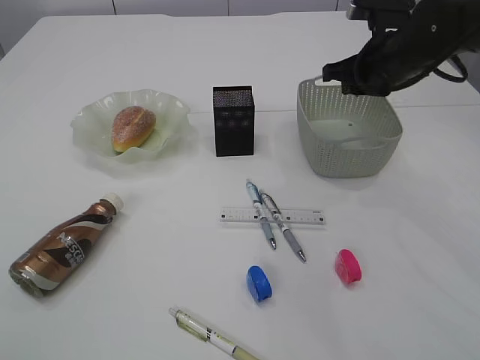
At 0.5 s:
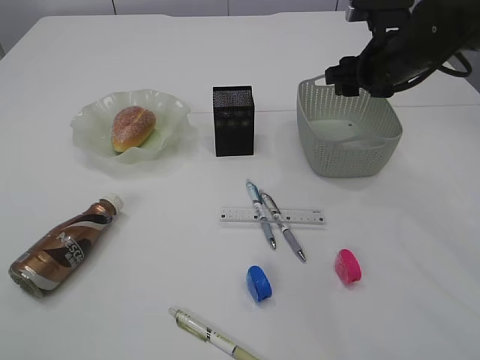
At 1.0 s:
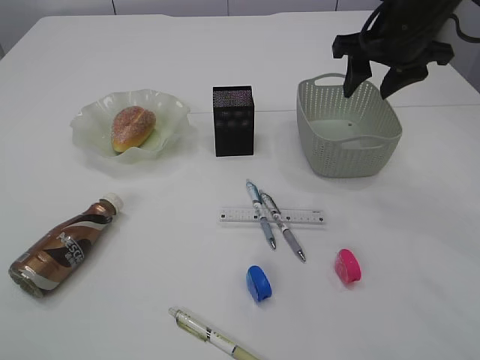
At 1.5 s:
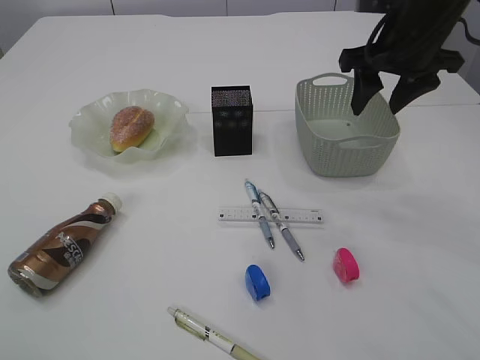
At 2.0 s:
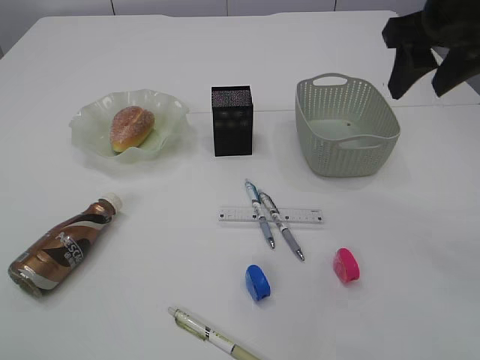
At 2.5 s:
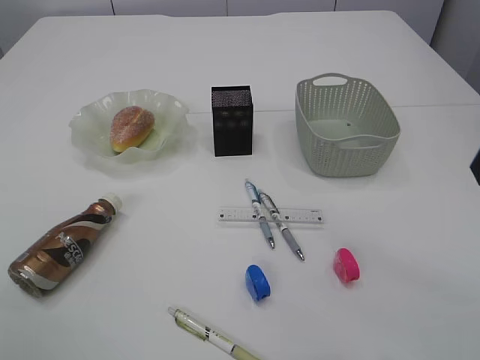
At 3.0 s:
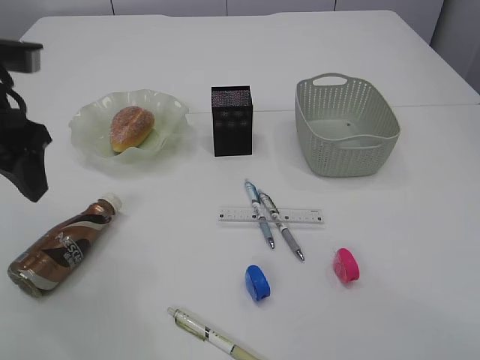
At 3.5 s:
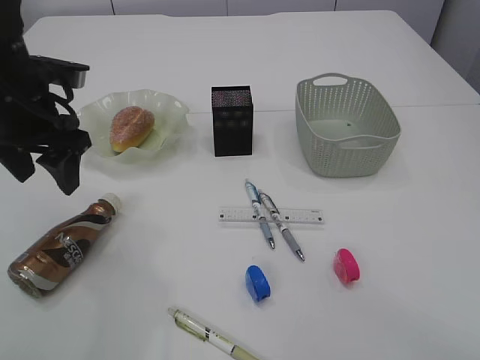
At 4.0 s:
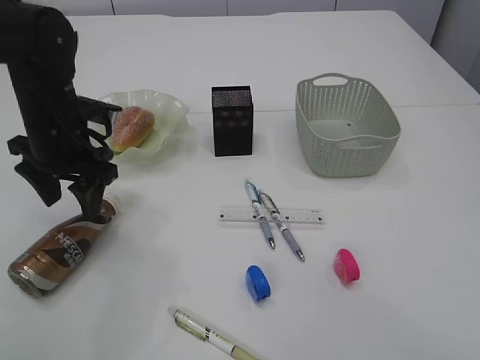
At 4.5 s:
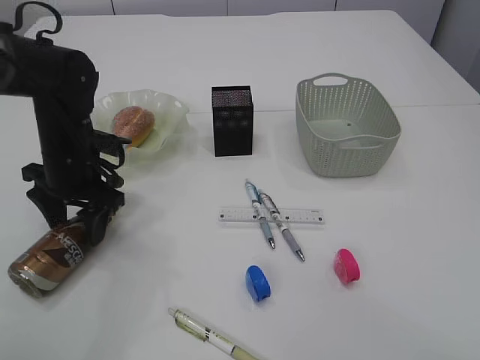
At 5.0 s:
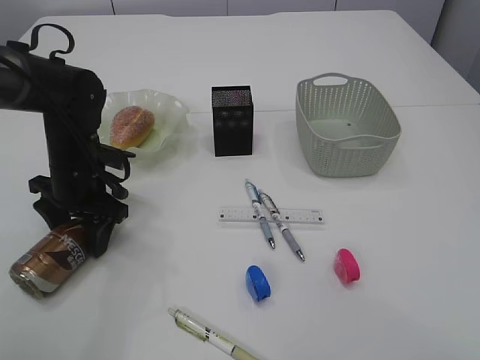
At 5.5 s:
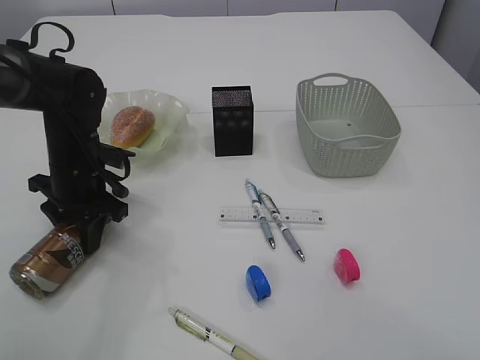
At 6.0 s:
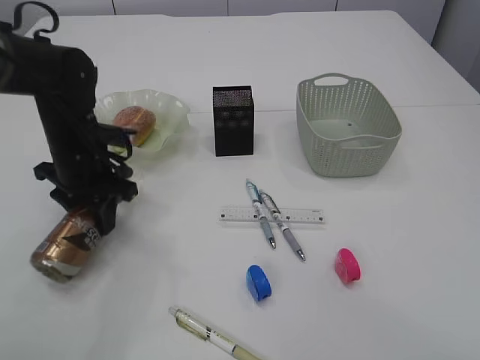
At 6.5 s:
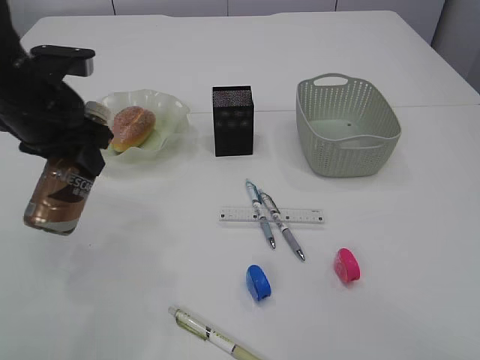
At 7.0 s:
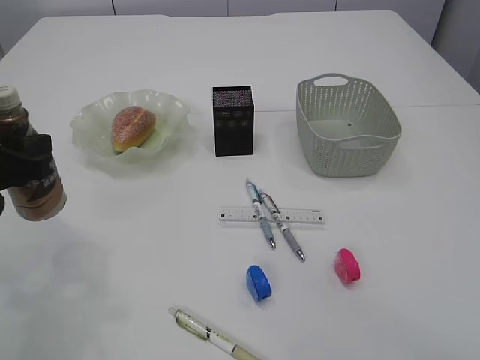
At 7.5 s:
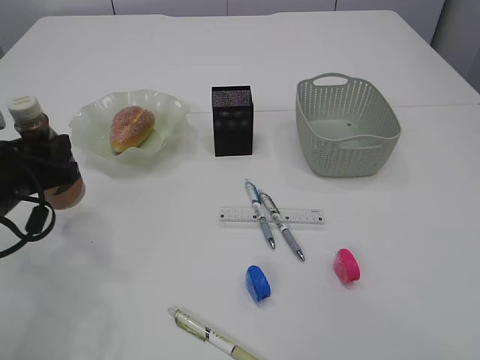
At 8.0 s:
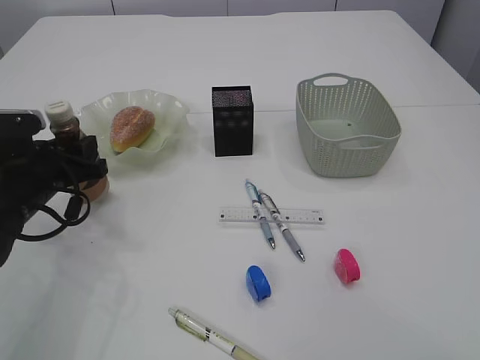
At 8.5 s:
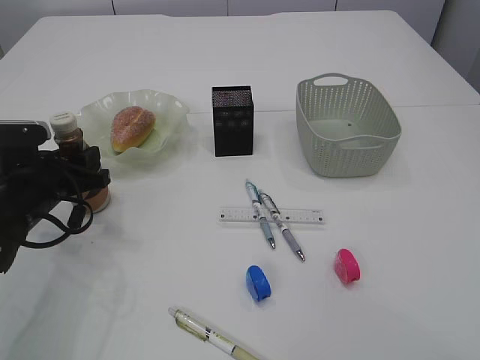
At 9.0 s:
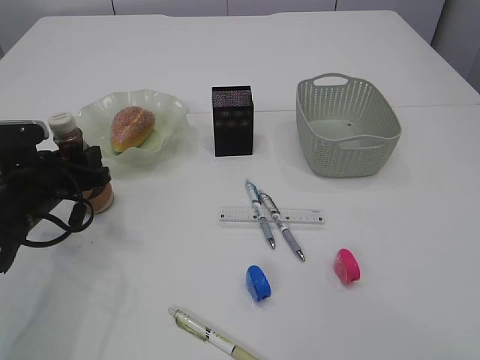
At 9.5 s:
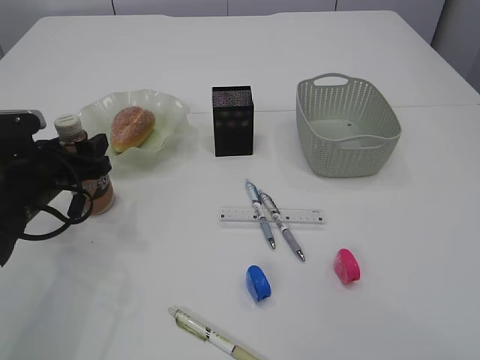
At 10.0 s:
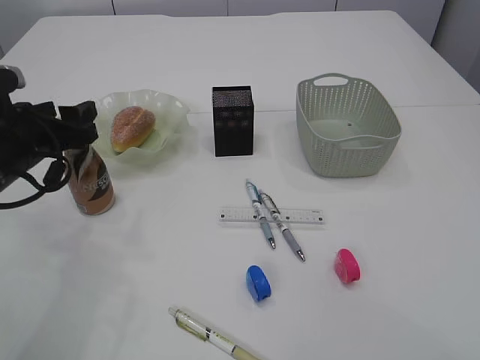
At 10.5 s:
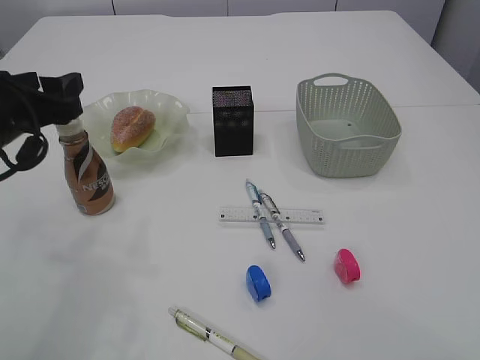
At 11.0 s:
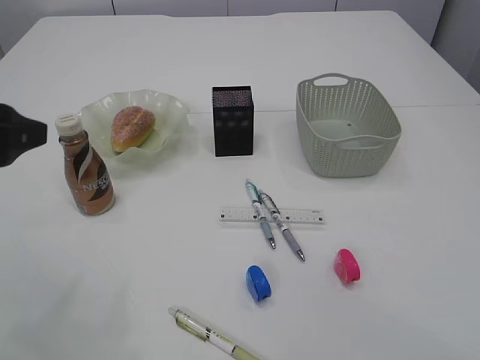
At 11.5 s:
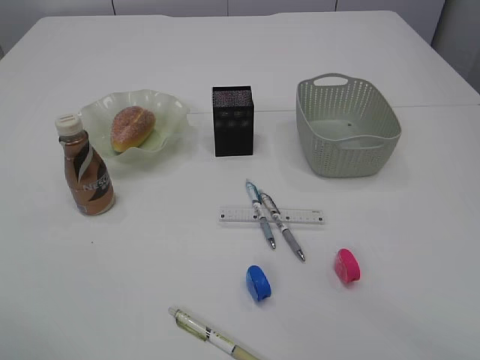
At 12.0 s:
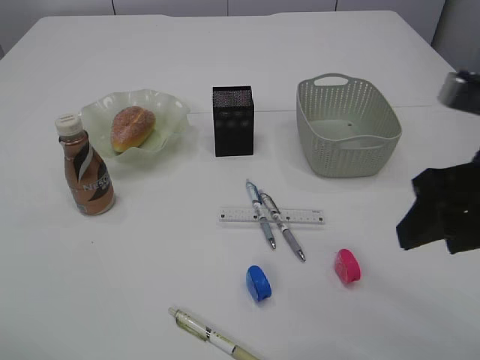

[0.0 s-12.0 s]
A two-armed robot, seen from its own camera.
Step, 1.0 to 6.0 s: Pick up the bottle with the left arm.
Step, 6.5 to 10.0 s: Place the bottle.
0.0 to 2.0 s: The right gripper is displaced upward and backward by roughly 15 cm, and opens.
2.0 to 4.0 s: The right gripper heads backward, covering about 25 cm. Meanwhile the left gripper is displaced downward and forward by some 35 cm.
4.0 to 6.0 s: The left gripper closes.
6.0 to 8.0 s: The left gripper is displaced backward and to the left by roughly 5 cm.
8.0 to 10.0 s: The left gripper goes about 5 cm upward, and opens.
10.0 to 12.0 s: The left gripper shifts approximately 25 cm backward and upward. The right gripper shifts roughly 15 cm forward and downward.

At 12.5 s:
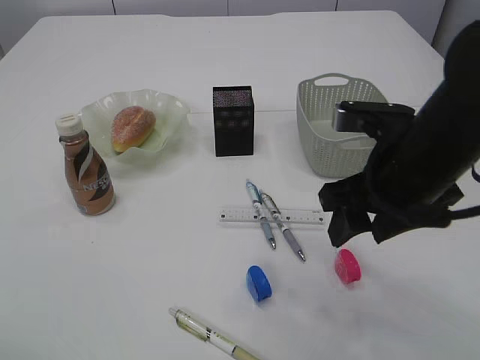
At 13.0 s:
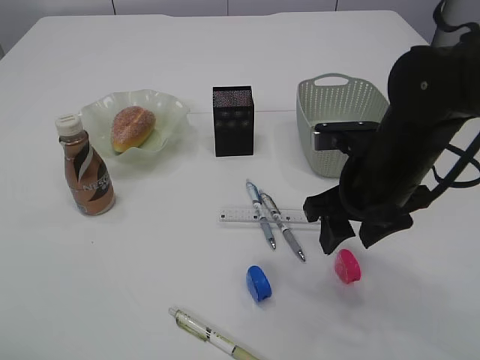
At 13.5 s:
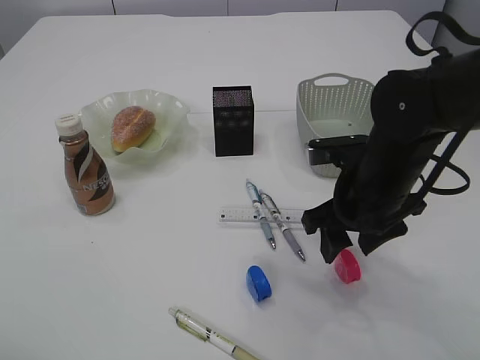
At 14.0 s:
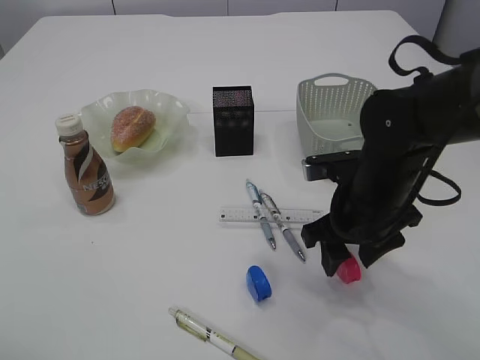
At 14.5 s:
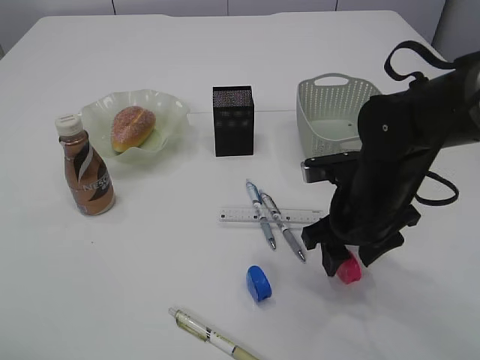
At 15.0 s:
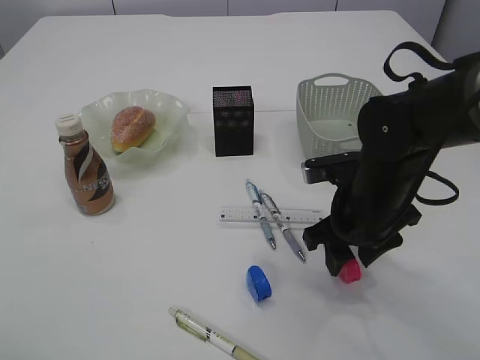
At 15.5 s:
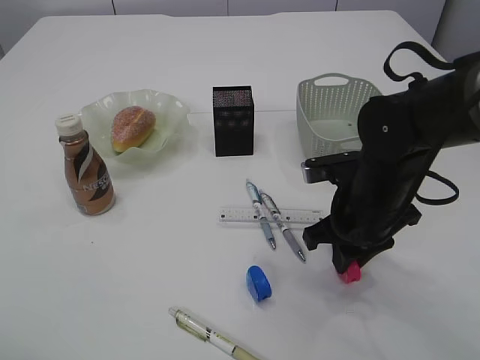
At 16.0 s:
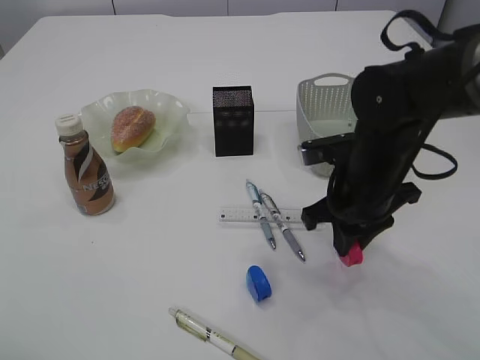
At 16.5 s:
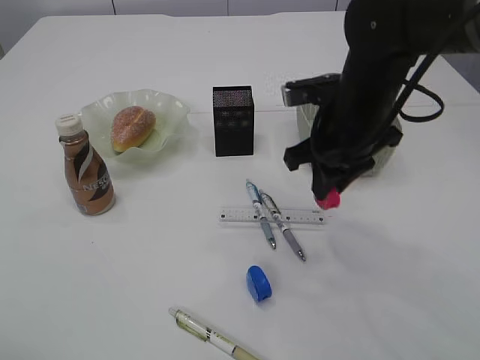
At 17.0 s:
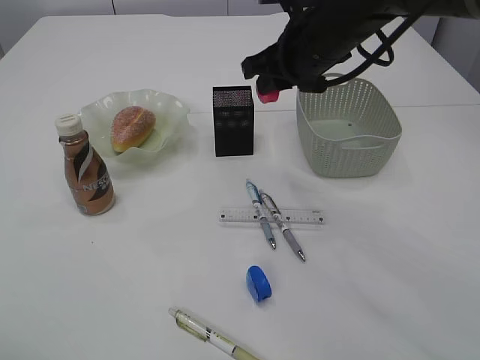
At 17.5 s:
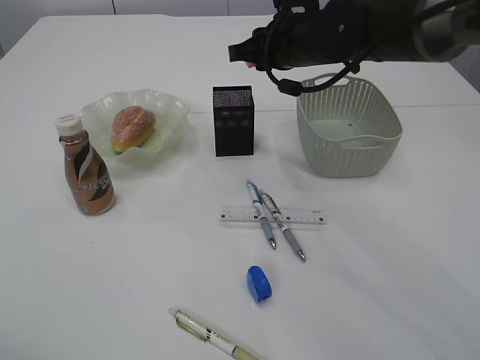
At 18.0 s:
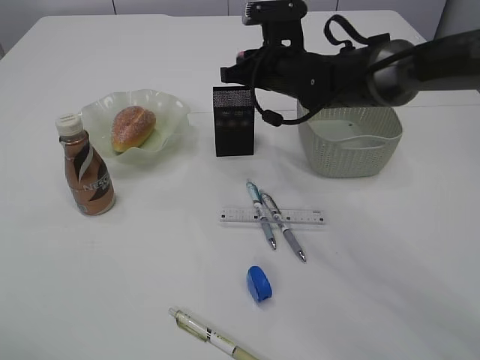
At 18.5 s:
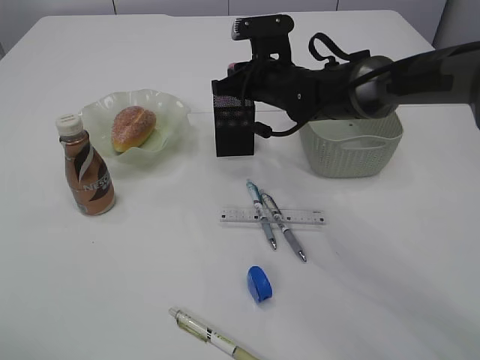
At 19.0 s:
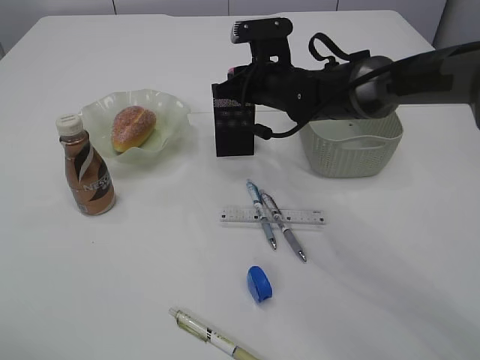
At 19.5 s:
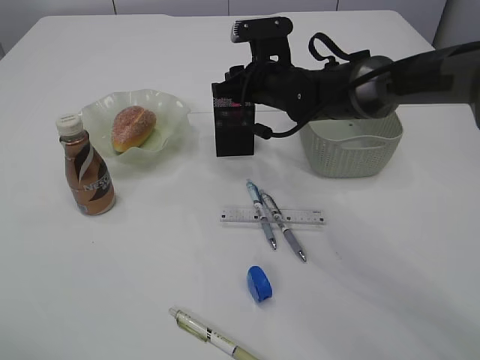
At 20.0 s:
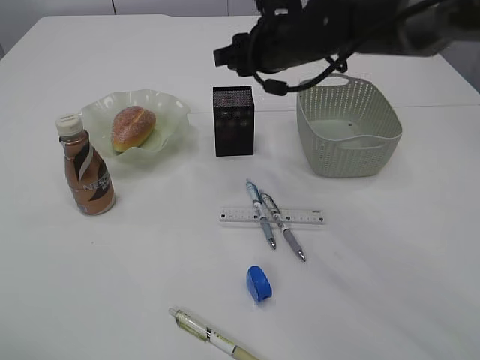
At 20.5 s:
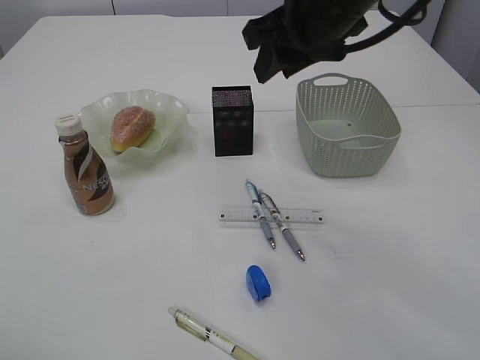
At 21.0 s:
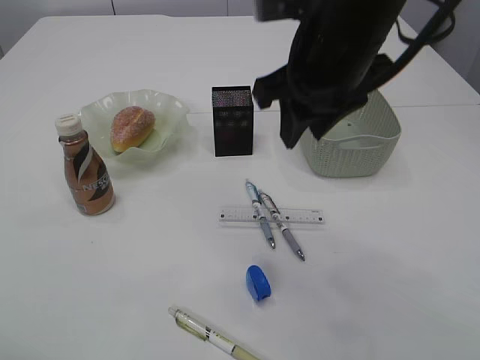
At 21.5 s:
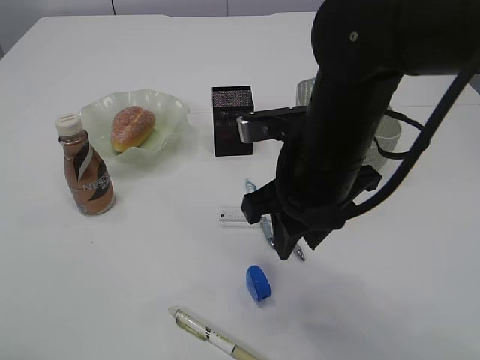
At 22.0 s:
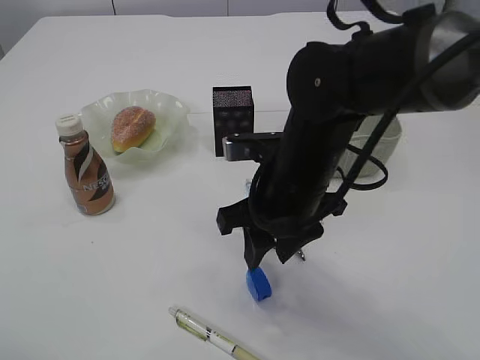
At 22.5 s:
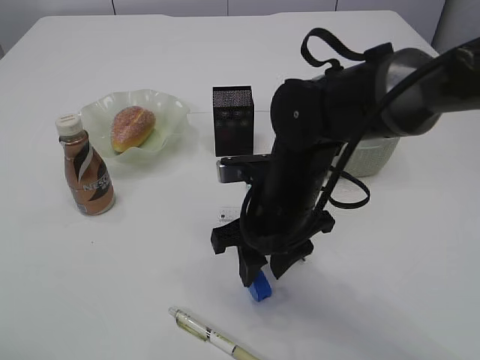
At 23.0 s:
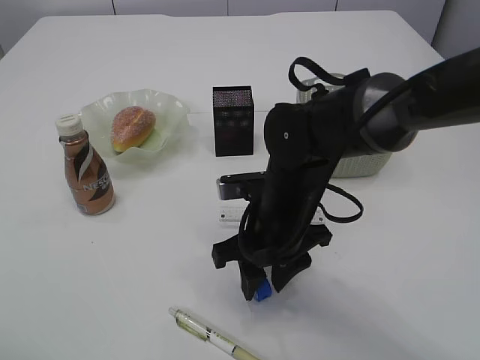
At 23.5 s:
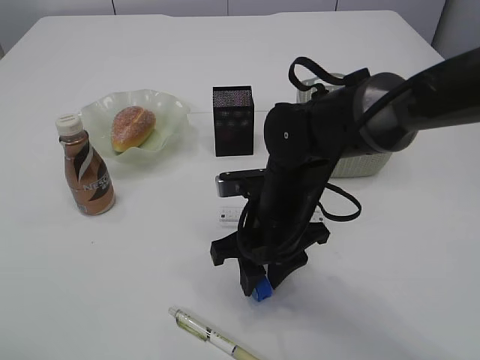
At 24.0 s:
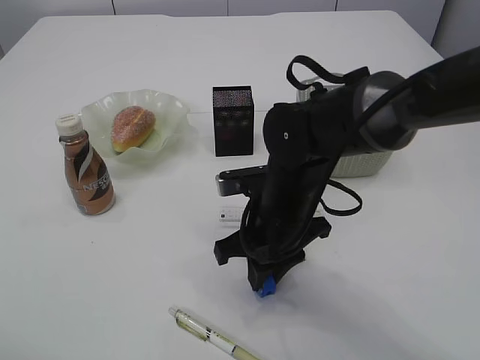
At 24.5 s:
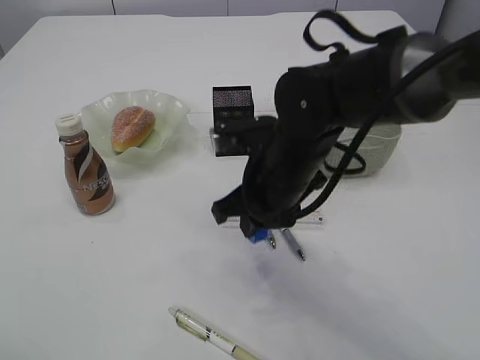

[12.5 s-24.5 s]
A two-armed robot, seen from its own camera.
Step, 12.5 to 16.0 s: Pick up the red pencil sharpener.
Step, 16.5 to 20.0 s: Place the red pencil sharpener into the pen holder.
Step, 20.5 to 24.5 s: Pick up the blue pencil sharpener.
12.5 to 14.5 s: The right gripper is displaced downward and forward by about 10 cm.
14.5 to 16.5 s: The right gripper is displaced upward by about 10 cm, and closes its fingers.
16.5 to 18.5 s: The right gripper is displaced forward and to the left by roughly 15 cm.
18.5 to 20.5 s: The right gripper is displaced upward and backward by roughly 20 cm.
20.5 to 22.5 s: The right gripper goes about 15 cm downward.
22.5 to 24.5 s: The right gripper closes its fingers.

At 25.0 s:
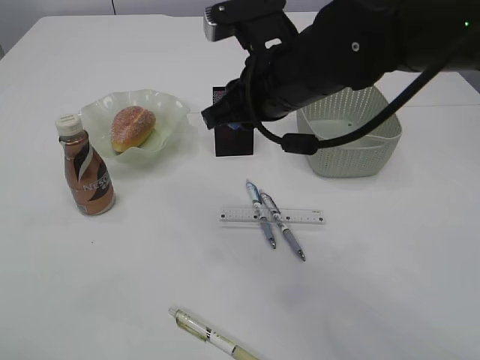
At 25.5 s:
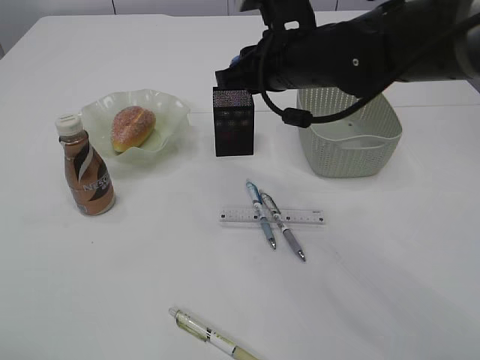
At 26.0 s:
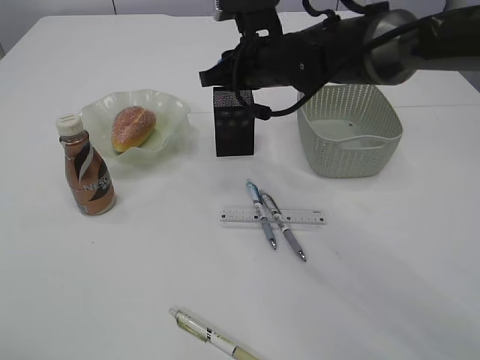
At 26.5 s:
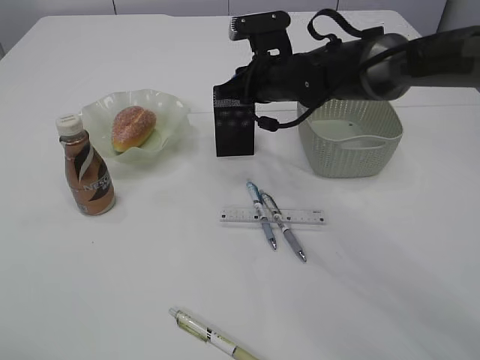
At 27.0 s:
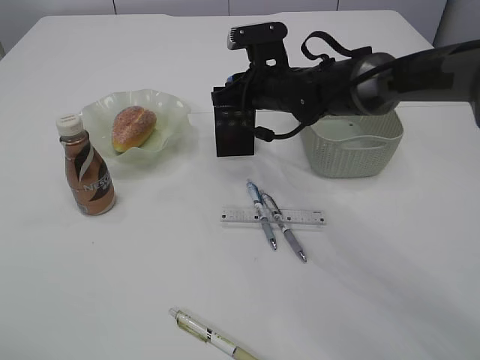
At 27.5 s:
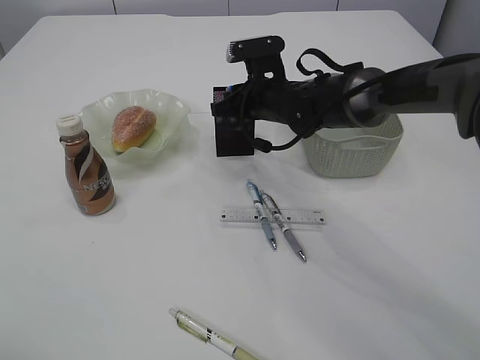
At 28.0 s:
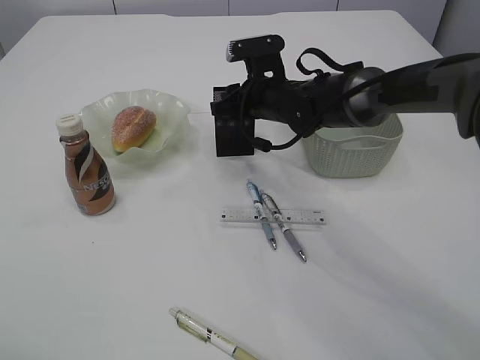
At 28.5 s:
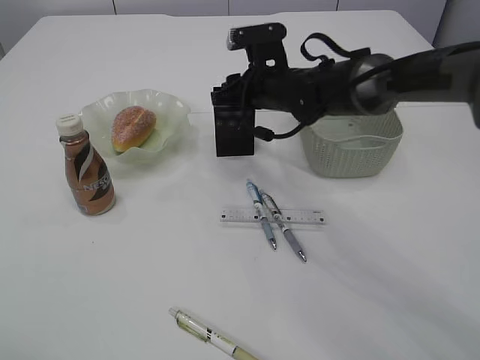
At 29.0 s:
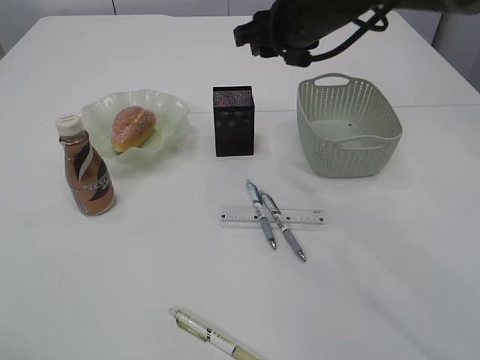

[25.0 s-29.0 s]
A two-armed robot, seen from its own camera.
Step, 25.0 to 28.5 s: Place the blue pencil sharpener into the pen holder.
25.0 to 27.0 s: The right gripper travels forward and downward by roughly 15 cm.
27.0 to 29.0 s: The right gripper goes about 10 cm upward, and opens its fingers.
